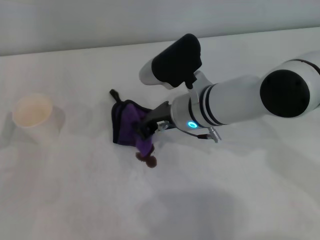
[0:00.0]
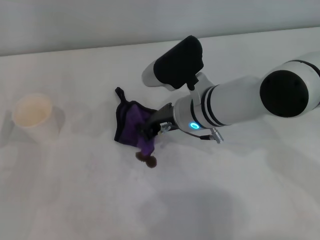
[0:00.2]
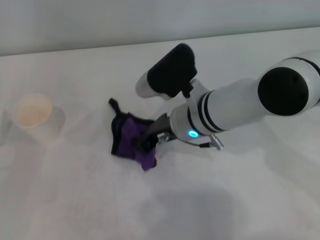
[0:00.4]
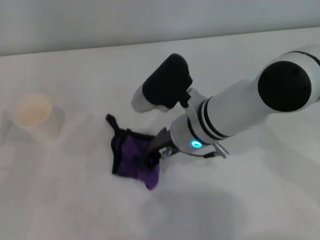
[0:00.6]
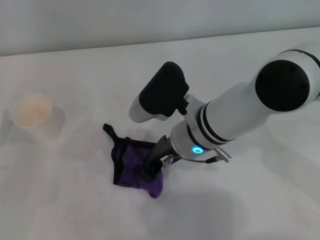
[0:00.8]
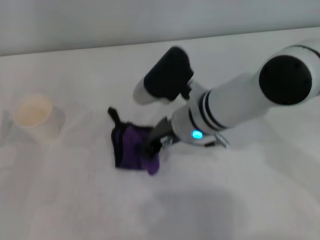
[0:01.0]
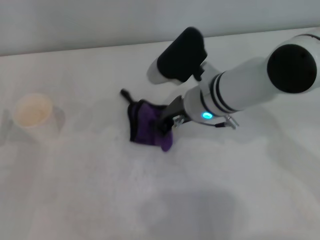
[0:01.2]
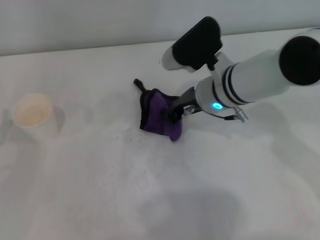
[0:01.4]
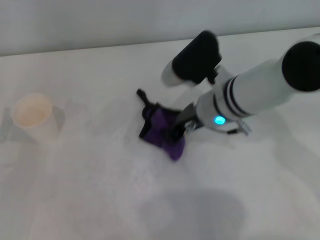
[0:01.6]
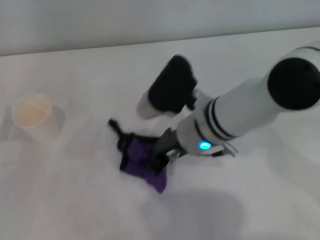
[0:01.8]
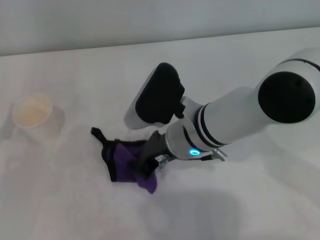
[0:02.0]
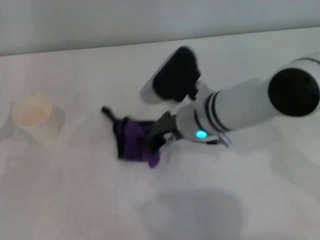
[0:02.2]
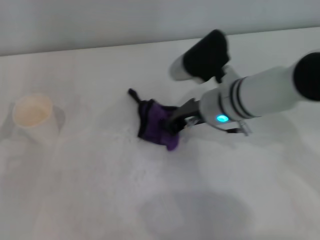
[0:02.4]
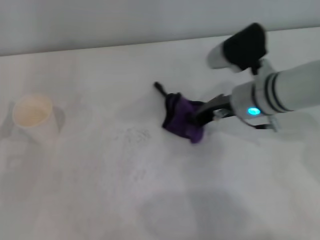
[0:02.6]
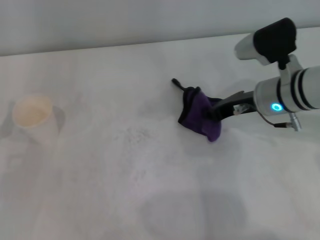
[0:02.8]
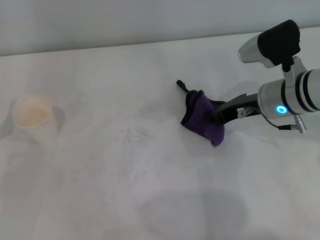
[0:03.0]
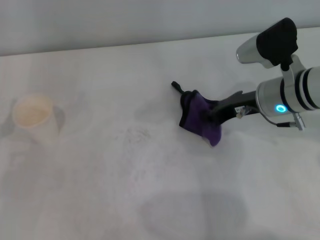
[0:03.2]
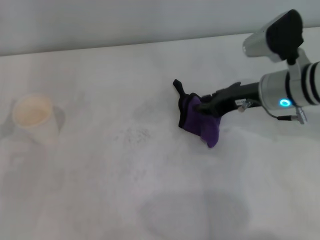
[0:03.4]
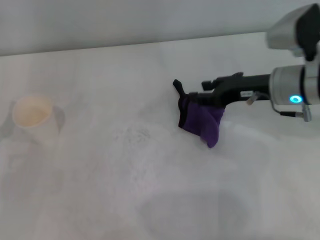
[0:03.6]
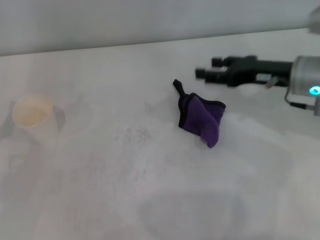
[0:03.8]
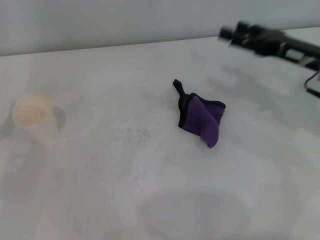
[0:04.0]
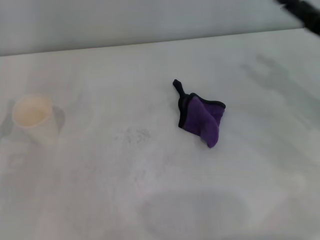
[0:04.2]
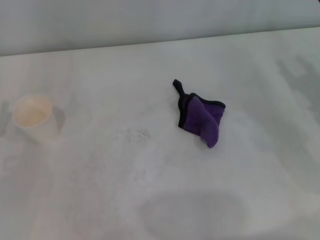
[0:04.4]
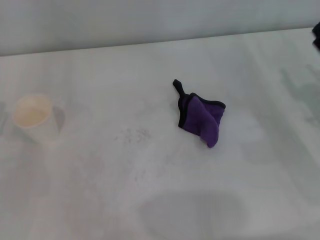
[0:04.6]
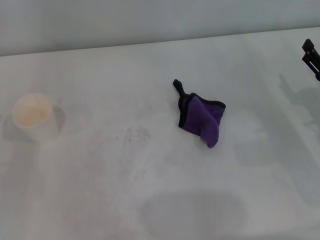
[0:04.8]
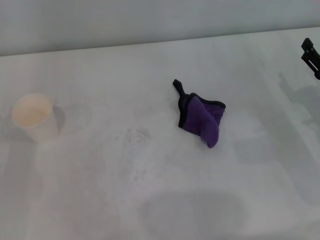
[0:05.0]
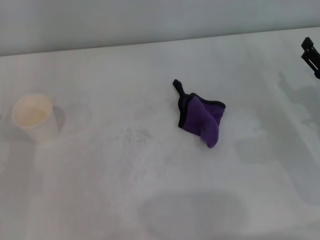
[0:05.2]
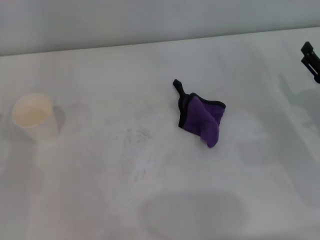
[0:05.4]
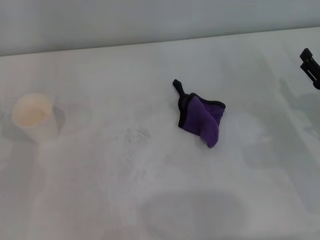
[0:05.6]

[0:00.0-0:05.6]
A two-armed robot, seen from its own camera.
Step, 0:00.0 to 0:02.4: Wipe the stains off the table with the right gripper.
Step, 0:02.6 to 0:03.2: Place the rag on the table with the right gripper.
0:00.0 to 0:01.4: The grippers move only a little.
0:01.4 to 0:02.8: The right gripper moves to the right, about 10 cm.
0:02.8 to 0:04.2: The right gripper is displaced to the right by about 10 cm, and opens.
0:04.2 to 0:05.6: The right gripper goes some 10 cm downward and backward.
